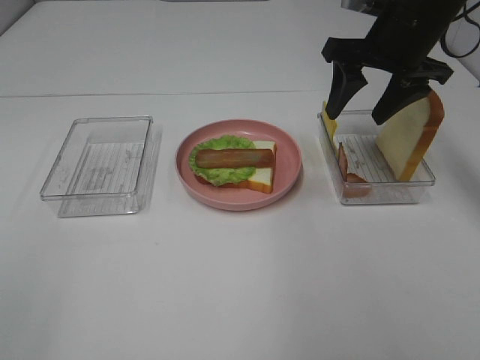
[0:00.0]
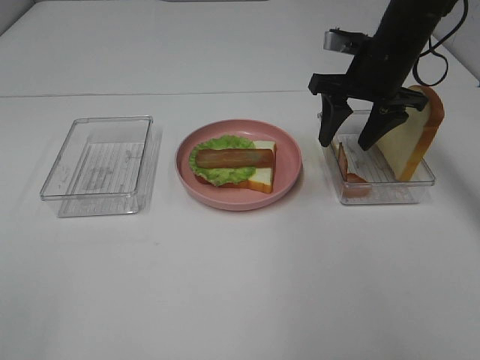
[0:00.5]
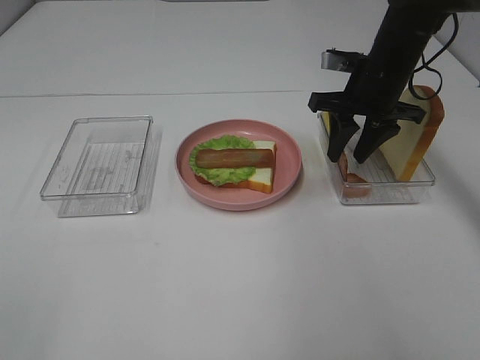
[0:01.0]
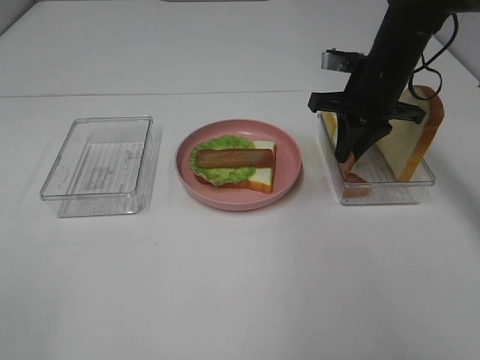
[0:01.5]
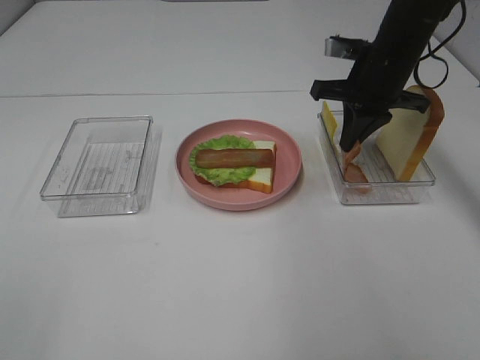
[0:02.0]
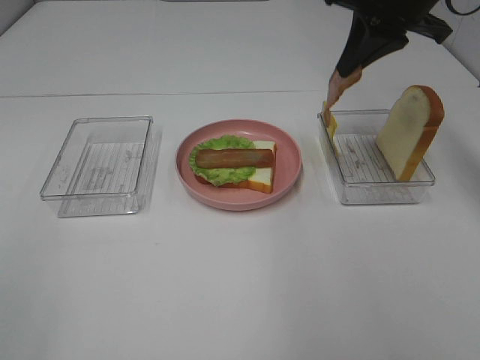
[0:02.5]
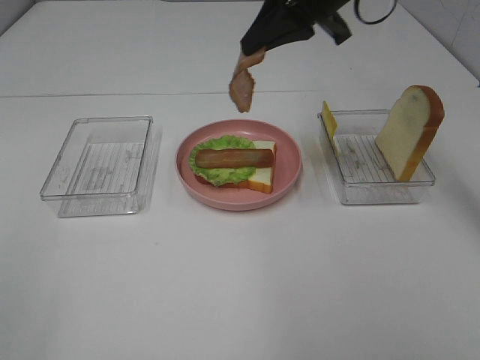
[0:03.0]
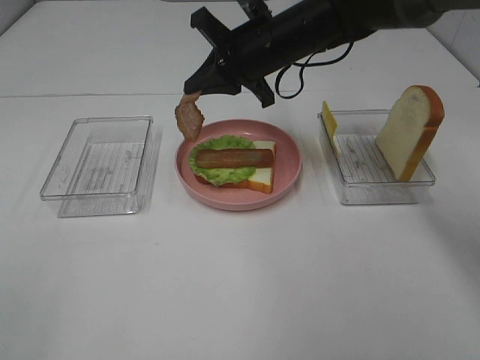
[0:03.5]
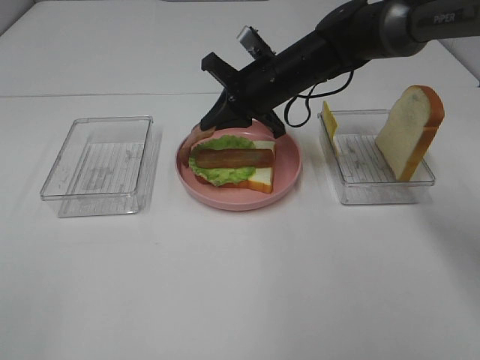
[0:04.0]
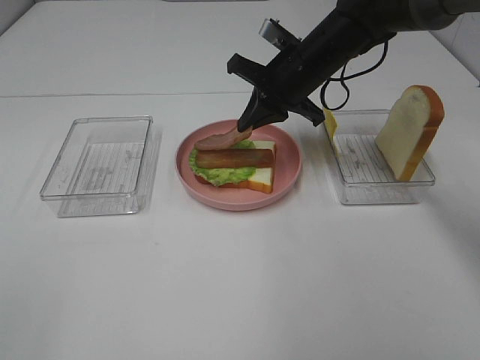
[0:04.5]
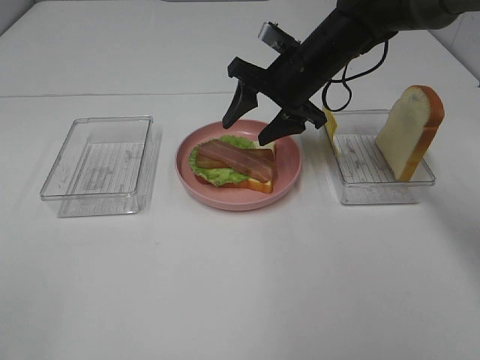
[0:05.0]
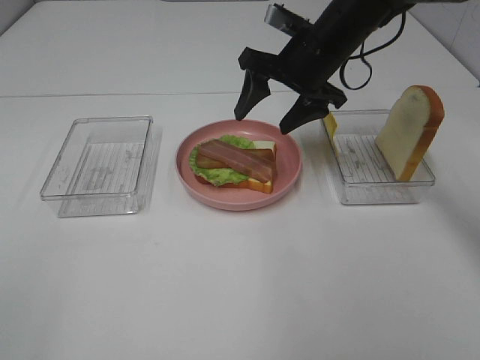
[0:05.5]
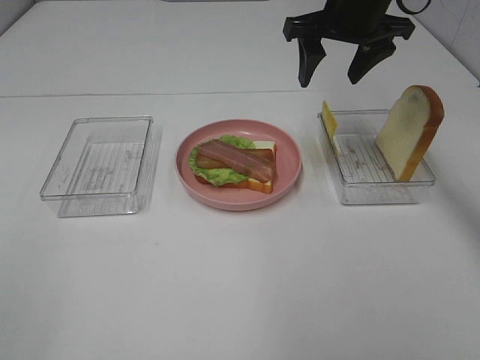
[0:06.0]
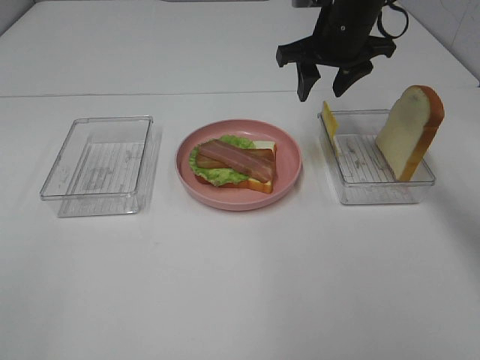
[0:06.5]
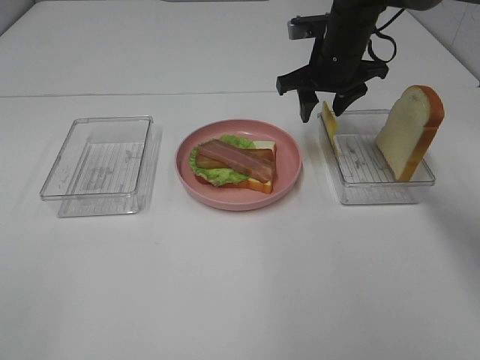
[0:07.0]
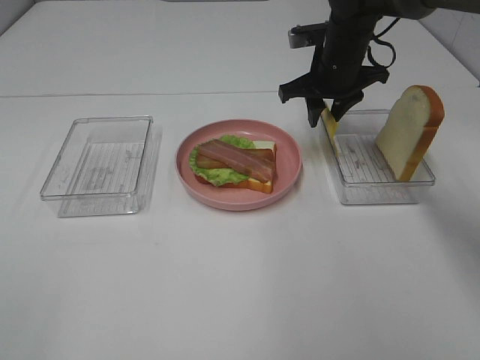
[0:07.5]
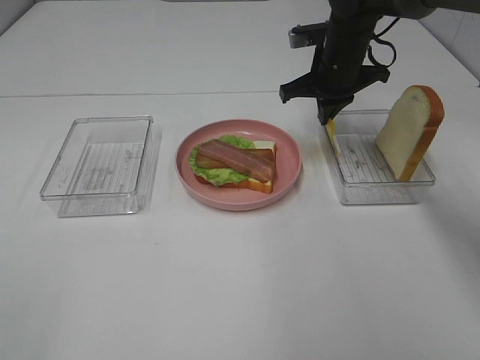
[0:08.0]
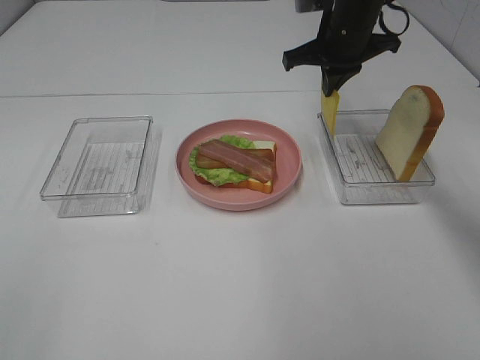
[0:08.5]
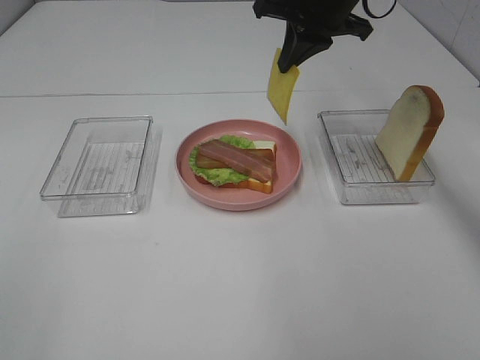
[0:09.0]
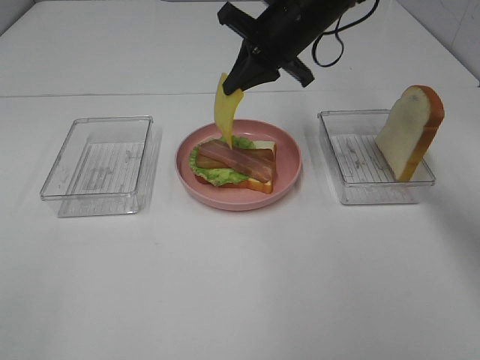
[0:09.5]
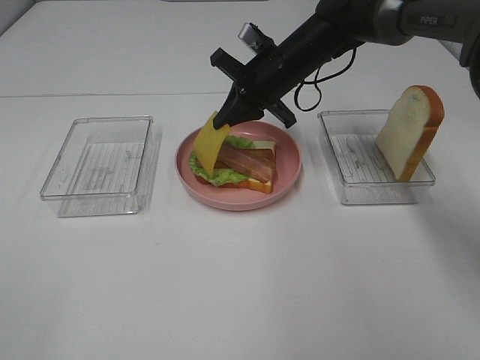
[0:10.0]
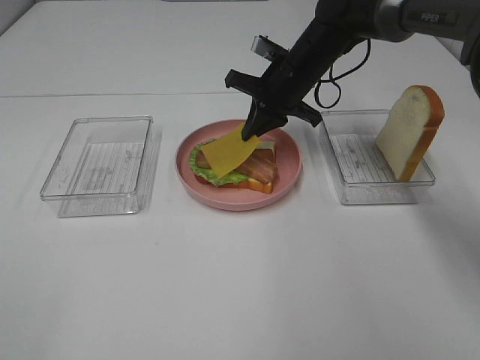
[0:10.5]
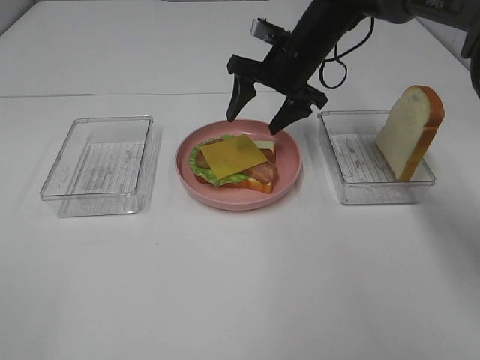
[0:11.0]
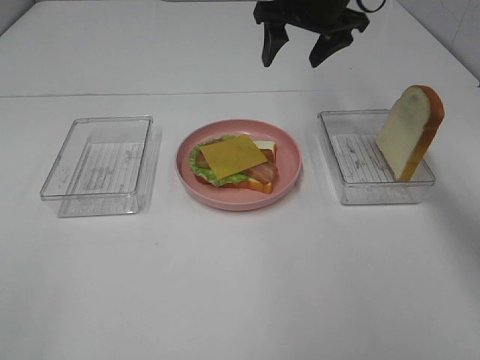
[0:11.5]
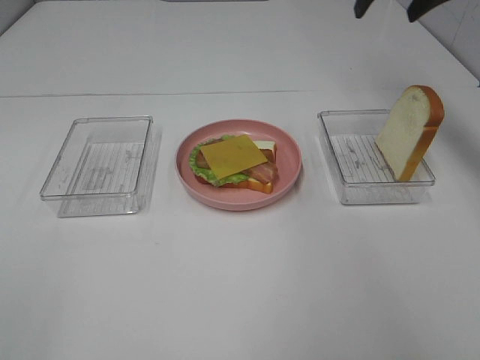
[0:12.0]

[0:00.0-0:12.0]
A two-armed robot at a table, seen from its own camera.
Task of the whole recording: Make sandwiches.
Step, 0:02.0 to 0:05.0: Right hand:place bacon on bacon.
Step, 0:05.5 to 0:08.0: Right hand:grab the cheese slice.
Step, 0:08.5 to 0:11.0: Right hand:place the cheese slice on top of the bacon.
0:00.0 to 0:02.0: The right gripper shifts by about 5 cm, and closes.
0:02.0 to 0:04.0: The right gripper goes approximately 10 cm to the left, and moves roughly 10 cm upward and comes back.
0:04.0 to 0:06.0: The right gripper moves upward and to the right, about 15 cm, and opens.
0:06.0 to 0:08.0: The right gripper travels downward by about 10 cm, and closes up.
0:08.0 to 0:10.0: The right gripper heads to the left, covering some 5 cm, and moves about 10 cm upward and comes back.
0:10.0 to 0:12.0: The right gripper shifts roughly 25 cm to the right and upward, and opens.

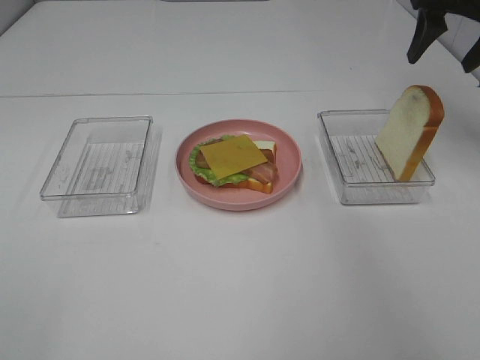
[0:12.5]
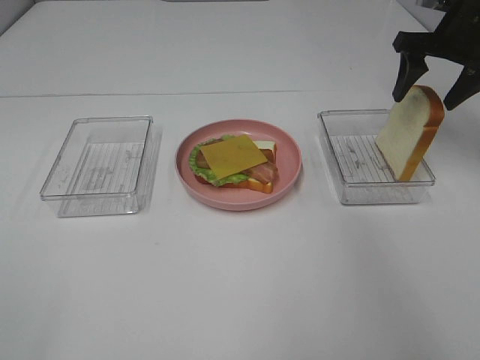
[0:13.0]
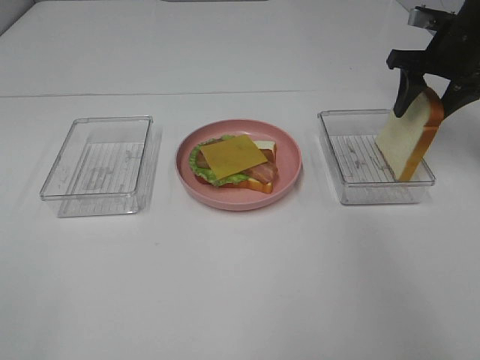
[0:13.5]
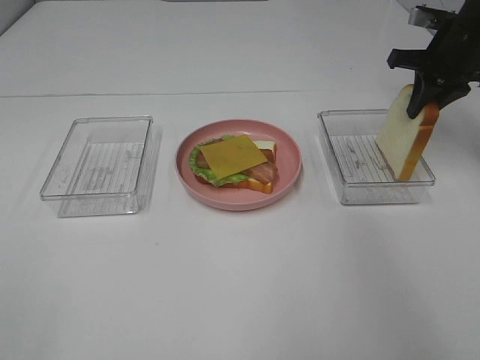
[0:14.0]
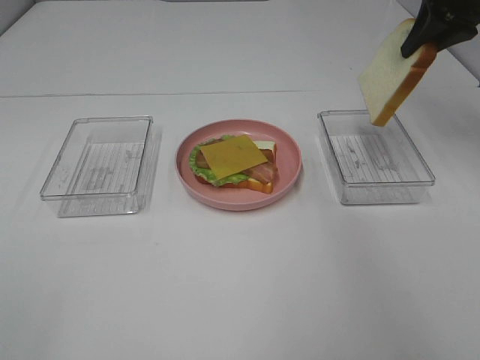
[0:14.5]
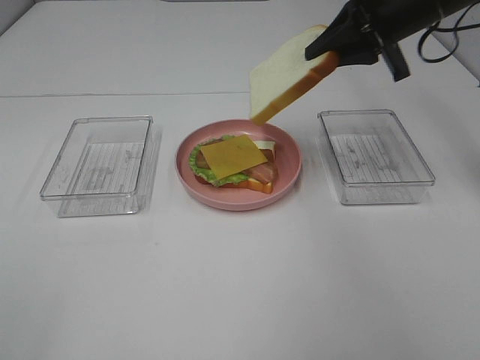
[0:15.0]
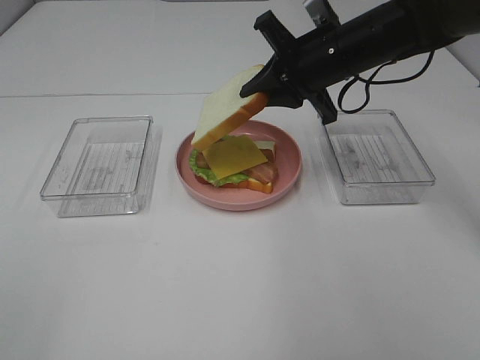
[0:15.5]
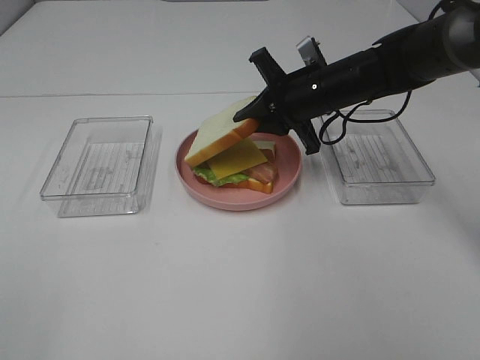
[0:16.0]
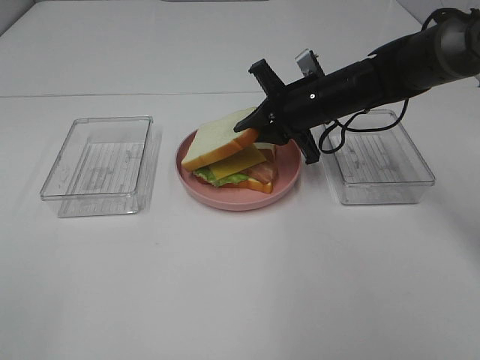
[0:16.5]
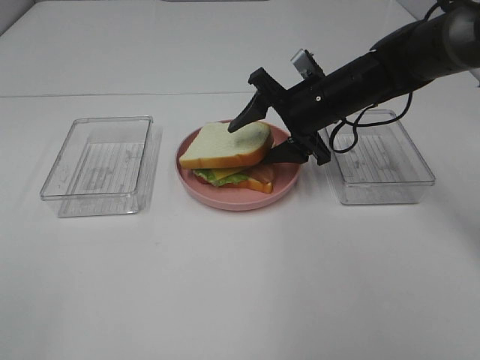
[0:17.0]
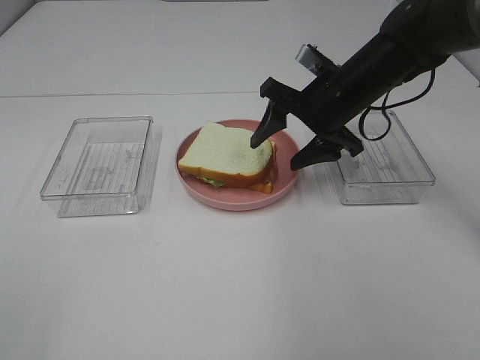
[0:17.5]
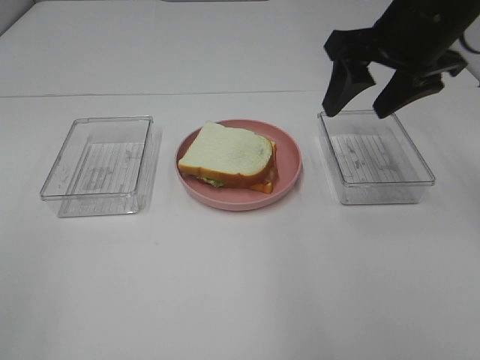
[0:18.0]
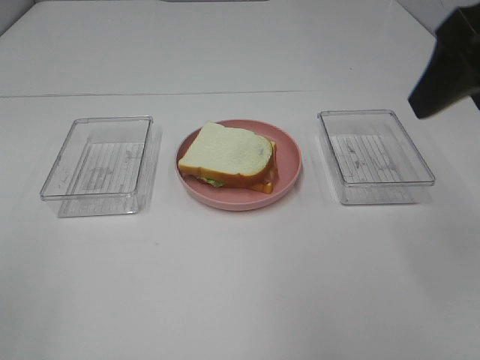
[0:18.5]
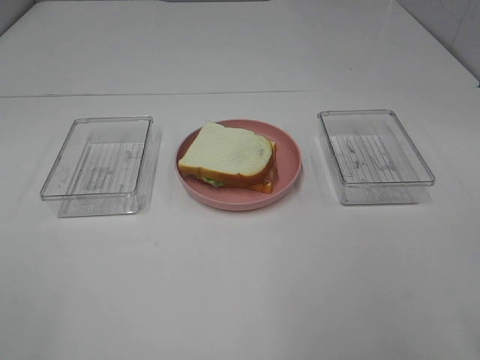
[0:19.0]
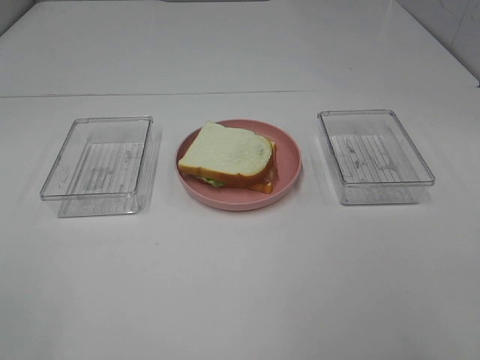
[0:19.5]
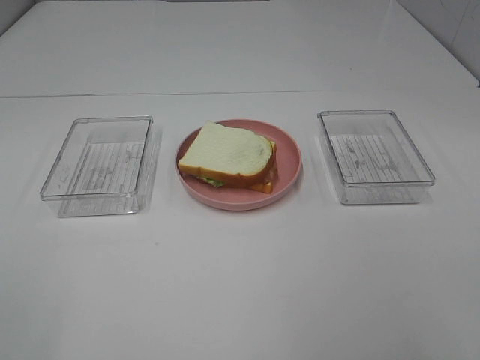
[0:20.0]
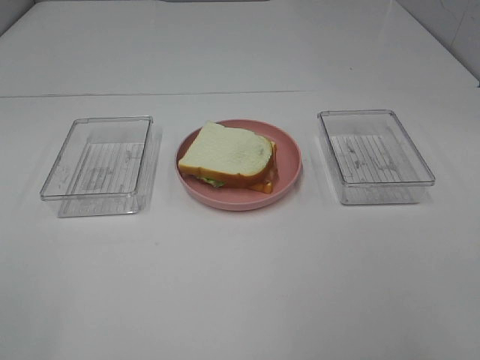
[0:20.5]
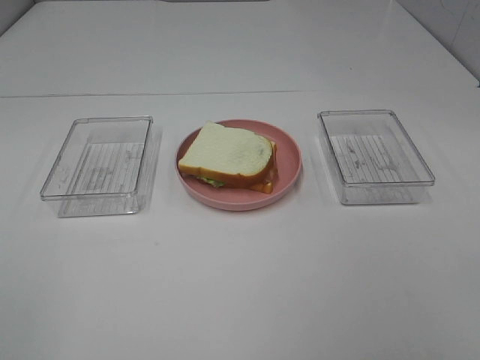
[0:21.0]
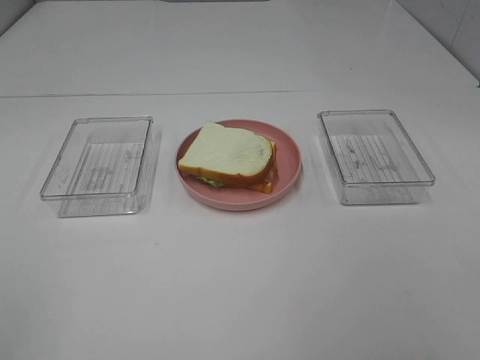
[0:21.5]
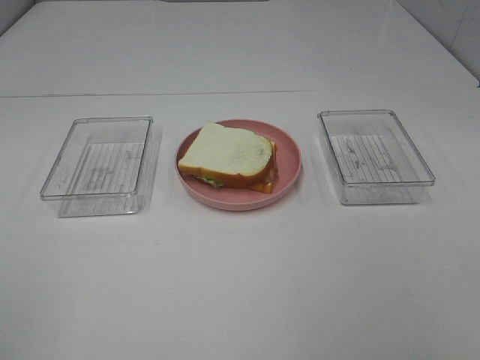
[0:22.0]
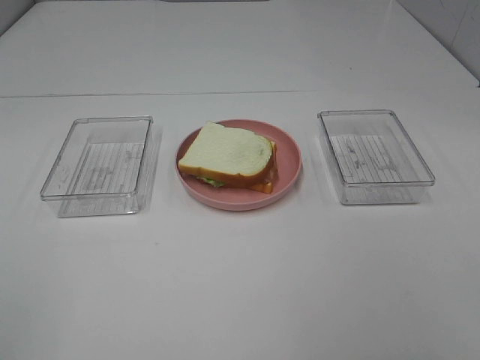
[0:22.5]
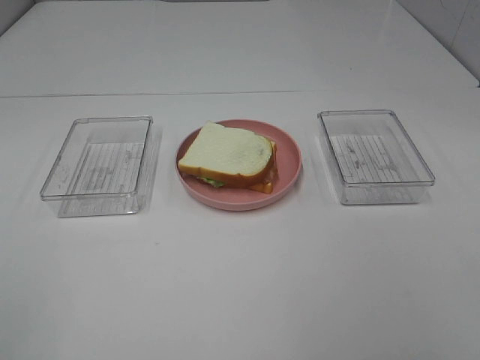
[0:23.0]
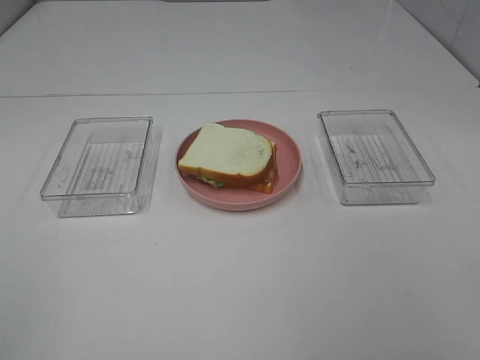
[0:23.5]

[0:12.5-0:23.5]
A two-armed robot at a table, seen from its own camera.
Task of the whole recording: Make sandwiches.
Step, 0:14.0 to 0:17.0: Right hand:place the bread slice on the cheese slice.
0:12.5 to 0:14.5: The right gripper reaches about 10 cm downward, then returns, and closes.
0:14.5 to 0:16.0: The right gripper travels downward and to the left by roughly 20 cm.
0:16.0 to 0:18.0: The right gripper goes approximately 15 cm upward and backward, and opens.
0:18.0 to 0:20.0: The right gripper is displaced backward by roughly 30 cm.
0:21.5 to 0:23.5: Neither gripper changes place.

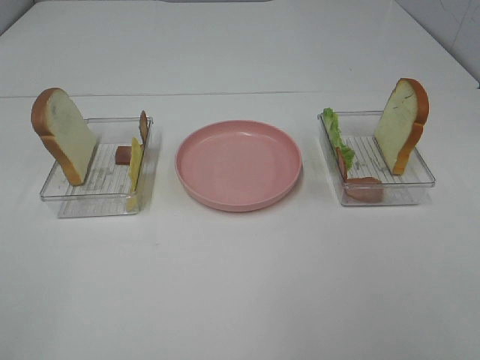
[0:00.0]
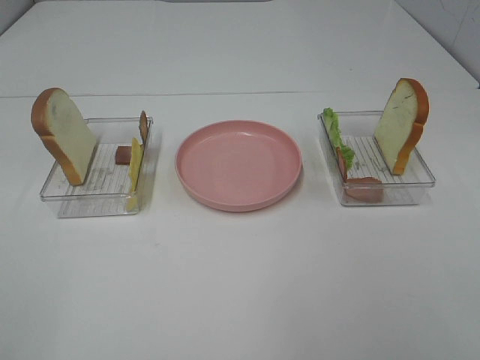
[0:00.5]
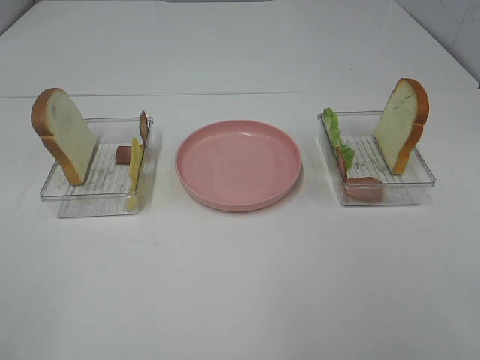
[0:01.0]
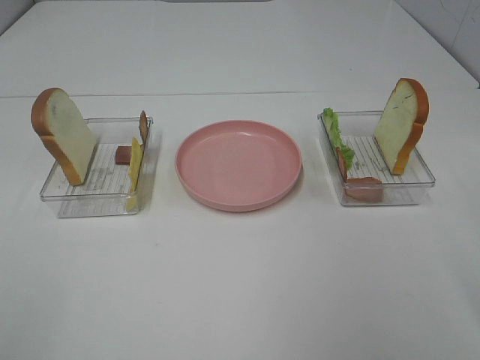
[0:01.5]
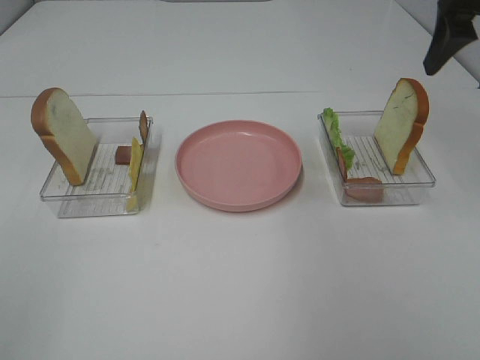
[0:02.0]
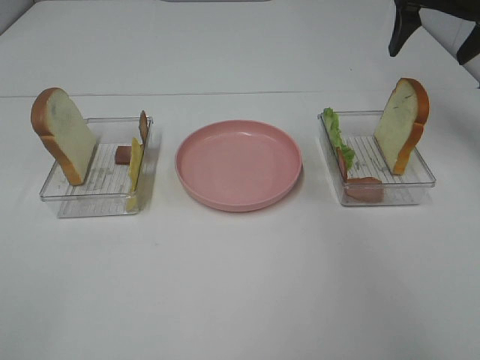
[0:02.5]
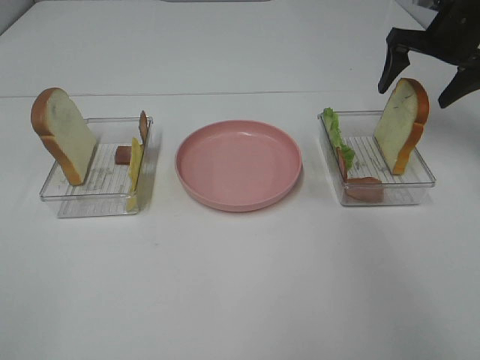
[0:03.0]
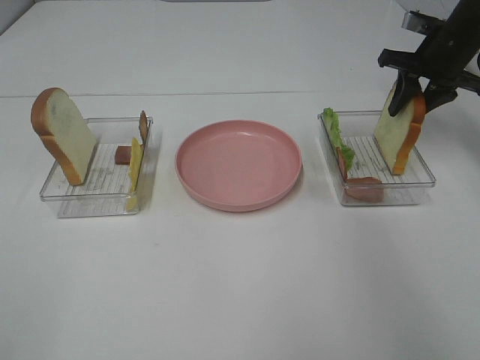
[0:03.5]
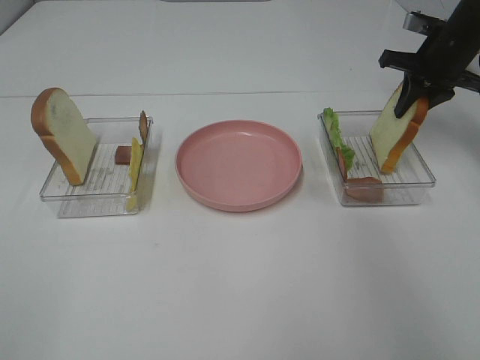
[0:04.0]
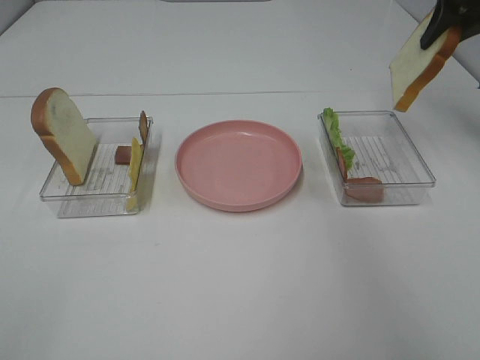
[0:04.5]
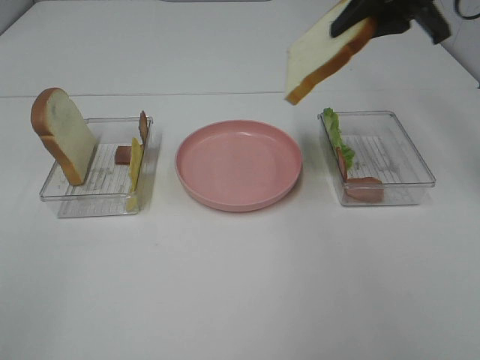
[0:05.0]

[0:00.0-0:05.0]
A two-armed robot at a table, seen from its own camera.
Task of the whole recording: Make sandwiches.
Step, 0:00.0 to 0:03.5: Right hand:grab the bread slice.
0:00.0 to 0:02.5: The right gripper travels forward by roughly 50 cm.
0:02.5 to 0:05.0: The right gripper shifts some 10 cm to the left and backward, moves roughly 10 cm downward and comes back, and closes its fingers.
